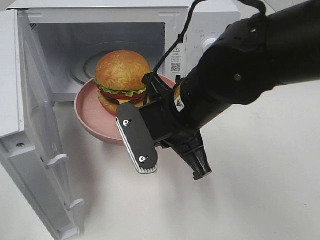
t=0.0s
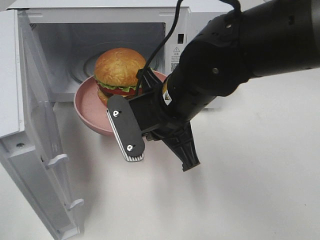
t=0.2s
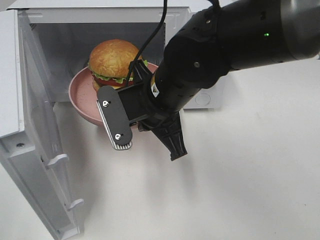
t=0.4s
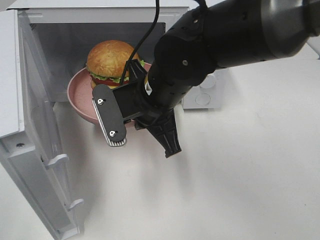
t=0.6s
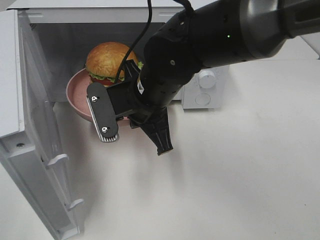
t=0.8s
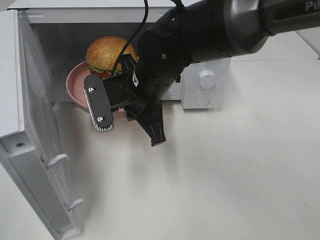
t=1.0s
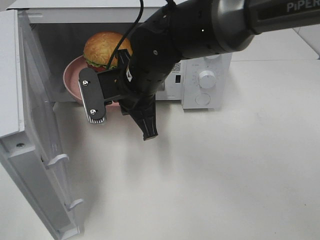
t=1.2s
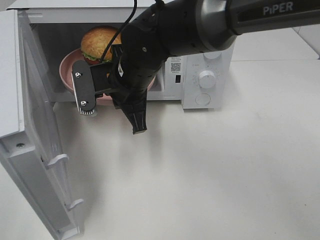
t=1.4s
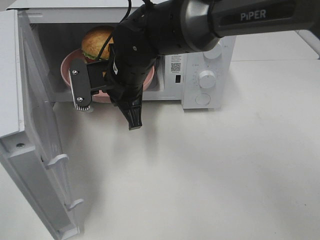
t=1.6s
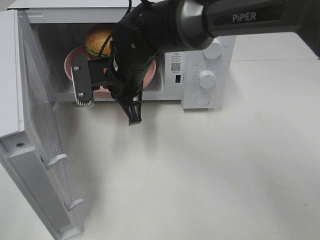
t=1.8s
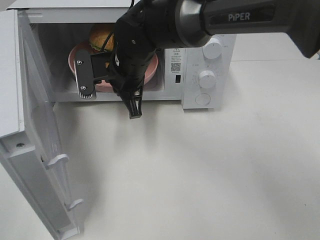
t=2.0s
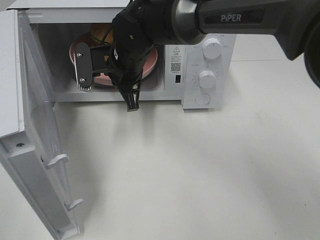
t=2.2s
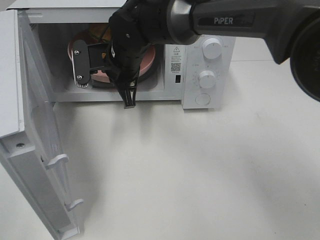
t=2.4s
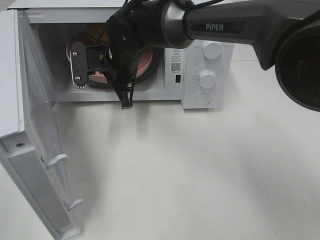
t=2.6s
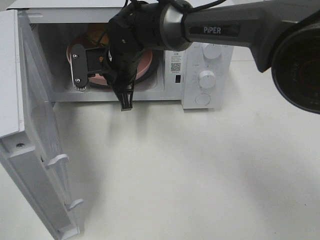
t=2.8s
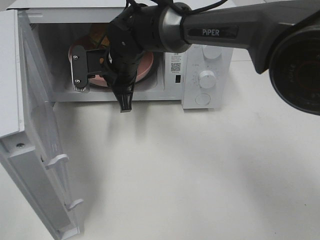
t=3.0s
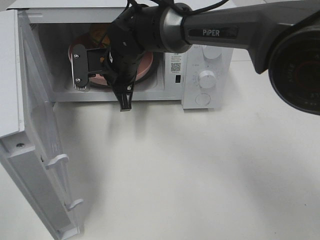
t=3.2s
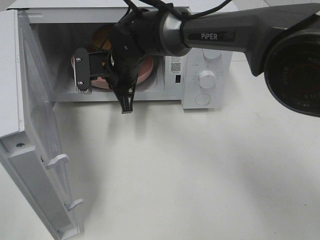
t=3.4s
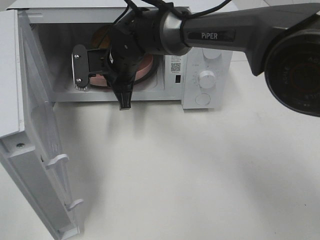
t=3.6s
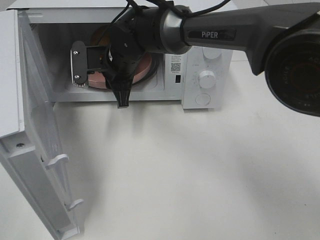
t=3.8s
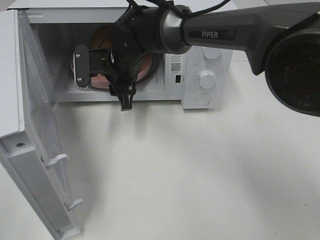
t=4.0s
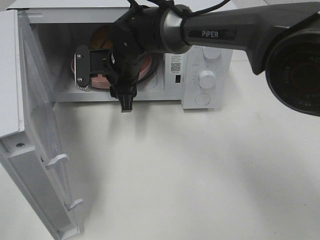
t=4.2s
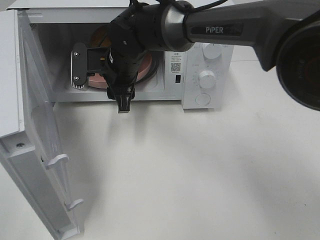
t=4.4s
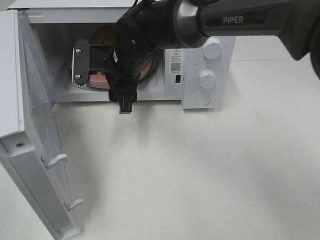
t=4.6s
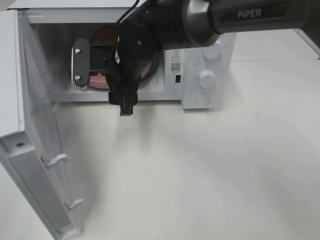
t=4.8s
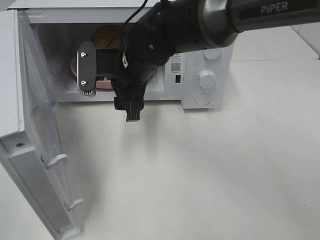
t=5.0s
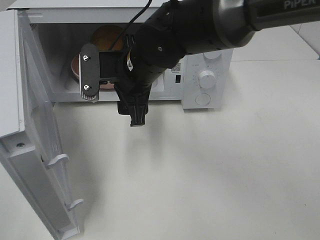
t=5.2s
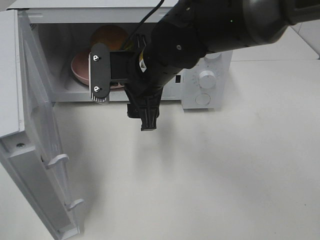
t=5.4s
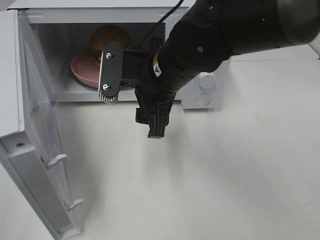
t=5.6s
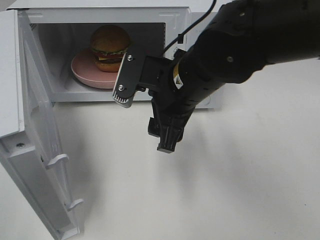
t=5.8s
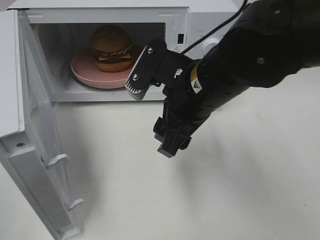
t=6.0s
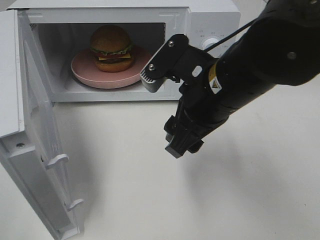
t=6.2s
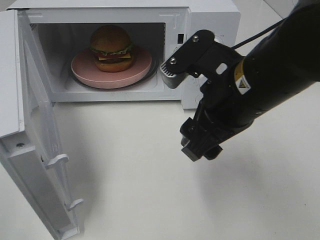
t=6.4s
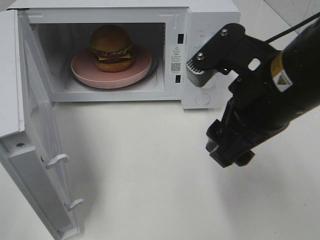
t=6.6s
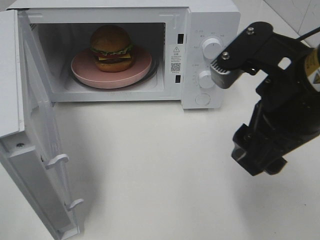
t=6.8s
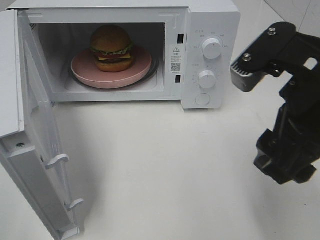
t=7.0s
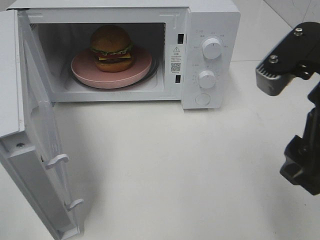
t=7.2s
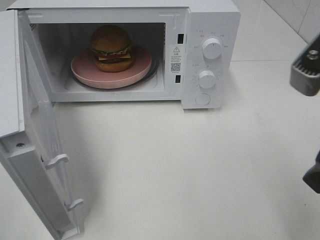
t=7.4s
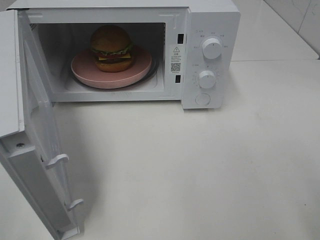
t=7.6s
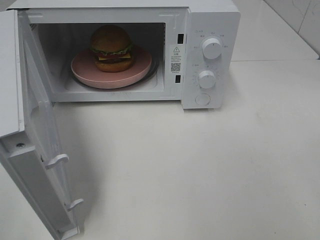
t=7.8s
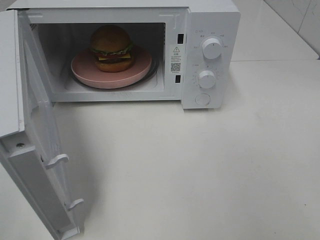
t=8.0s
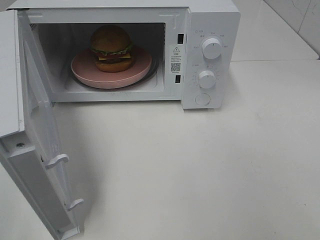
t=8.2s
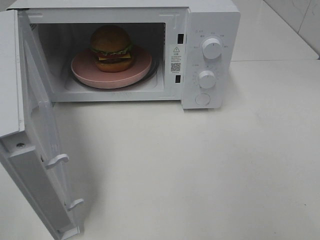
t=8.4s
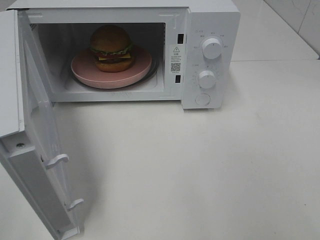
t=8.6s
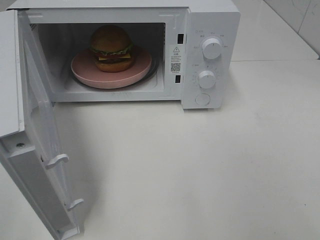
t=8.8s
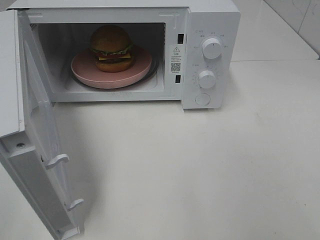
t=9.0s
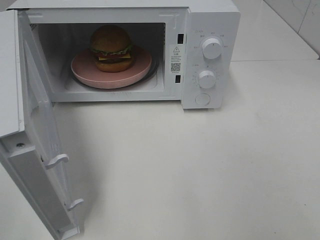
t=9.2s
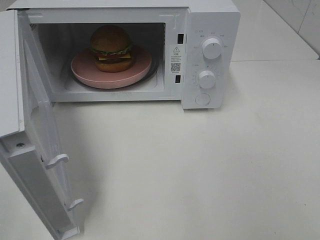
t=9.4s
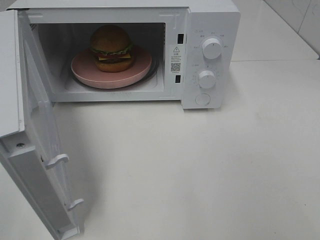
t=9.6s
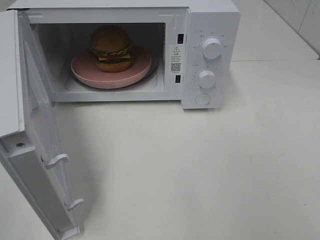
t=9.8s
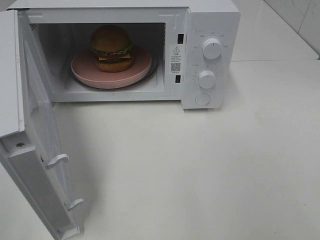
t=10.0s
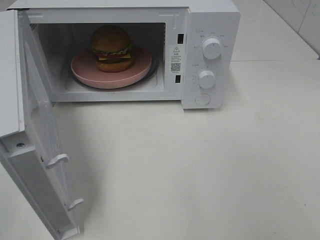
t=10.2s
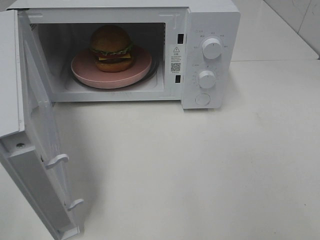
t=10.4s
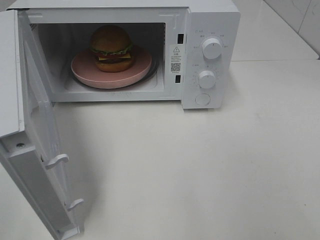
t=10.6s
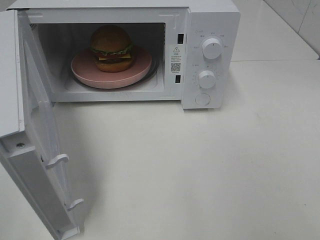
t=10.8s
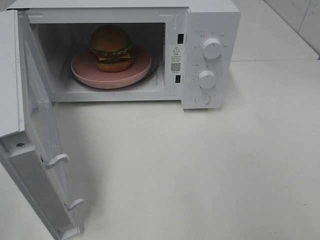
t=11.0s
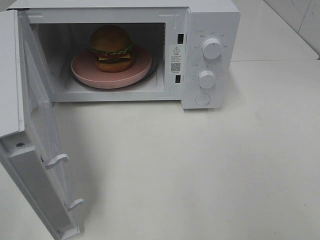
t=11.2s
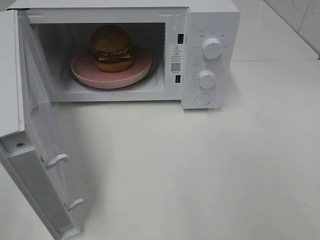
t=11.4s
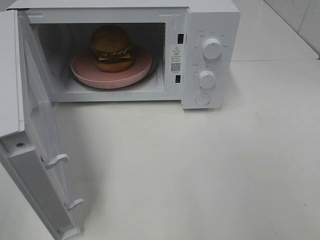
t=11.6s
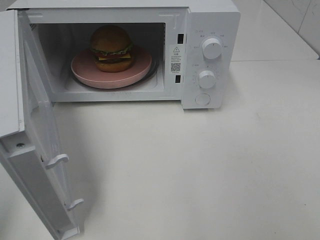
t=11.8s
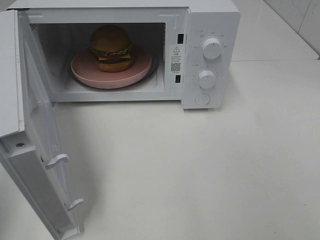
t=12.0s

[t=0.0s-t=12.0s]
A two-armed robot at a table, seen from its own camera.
Task of the whole recording: Heat the burger.
Step, t=0.0s to t=3.6s: Right hand: place the plate in the microwave.
t=0.0s to t=1.6s: The right gripper shifts some 15 cm forward and to the left.
t=1.6s to t=3.0s: The right gripper goes some 5 cm forward.
t=3.0s to t=4.4s: The right gripper opens up.
t=4.4s to t=6.0s: The right gripper travels backward and to the right by some 20 cm.
t=6.0s to t=7.6s: The right gripper is displaced to the right, backward and upward by roughly 20 cm.
t=9.0s to t=10.4s: Both grippers stay about where they are.

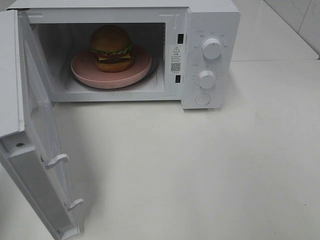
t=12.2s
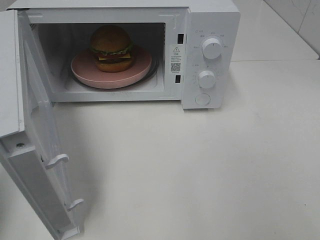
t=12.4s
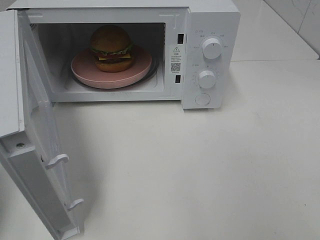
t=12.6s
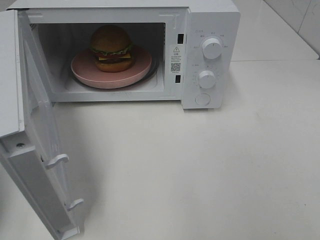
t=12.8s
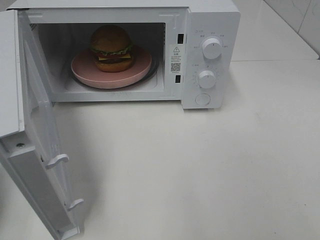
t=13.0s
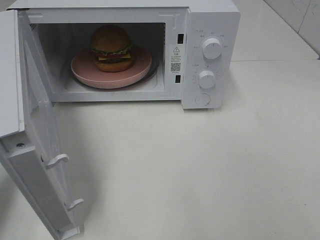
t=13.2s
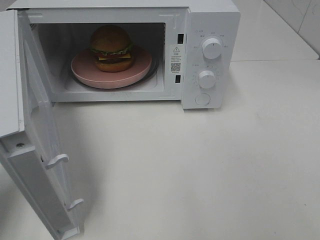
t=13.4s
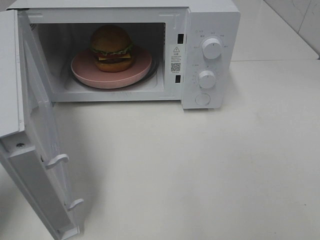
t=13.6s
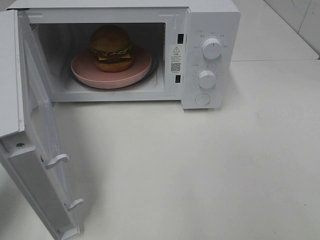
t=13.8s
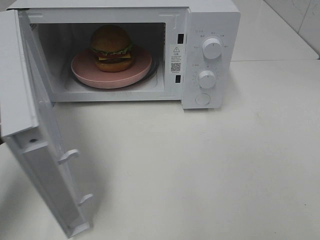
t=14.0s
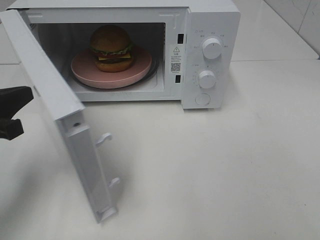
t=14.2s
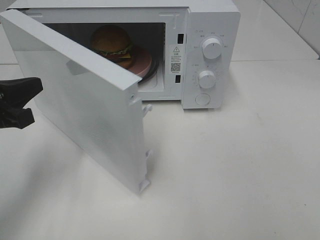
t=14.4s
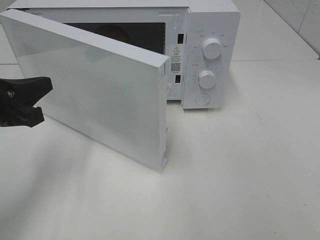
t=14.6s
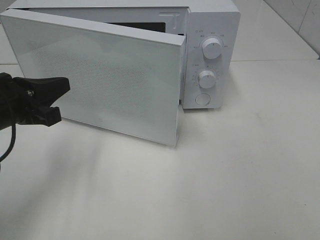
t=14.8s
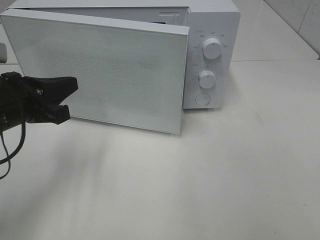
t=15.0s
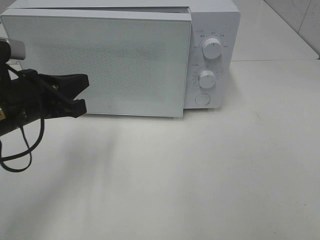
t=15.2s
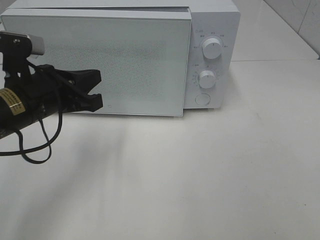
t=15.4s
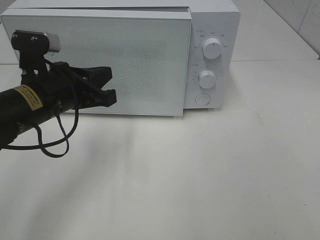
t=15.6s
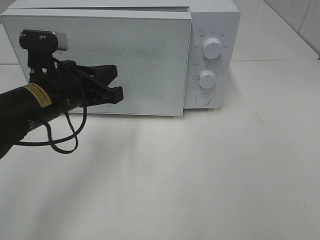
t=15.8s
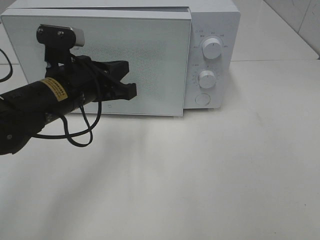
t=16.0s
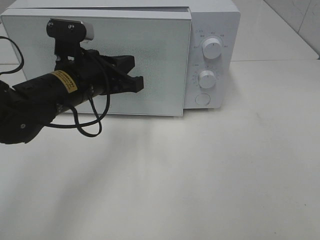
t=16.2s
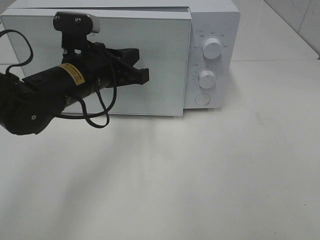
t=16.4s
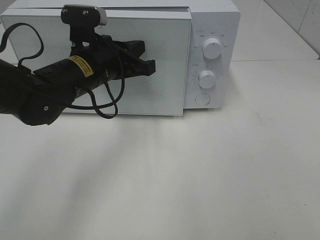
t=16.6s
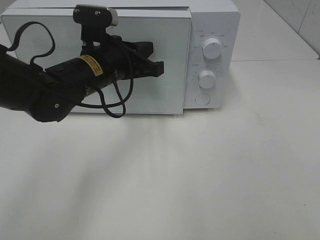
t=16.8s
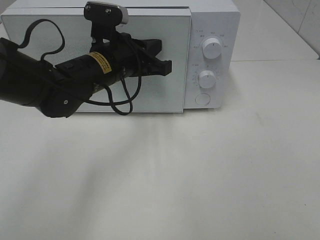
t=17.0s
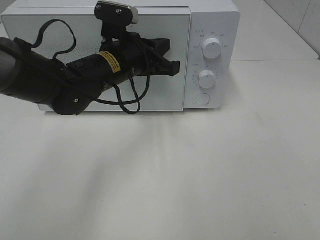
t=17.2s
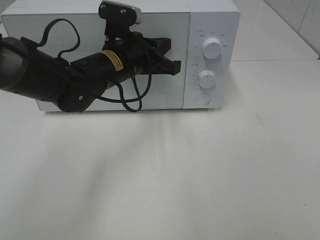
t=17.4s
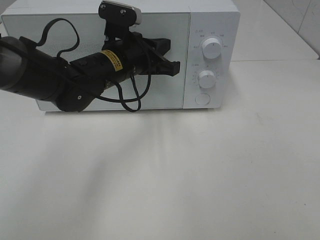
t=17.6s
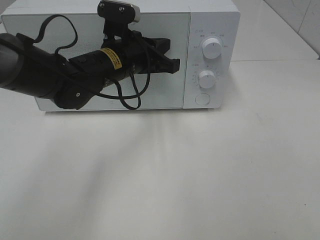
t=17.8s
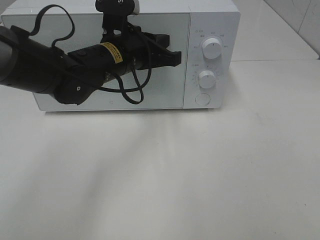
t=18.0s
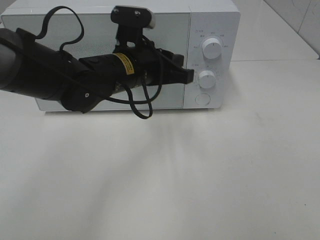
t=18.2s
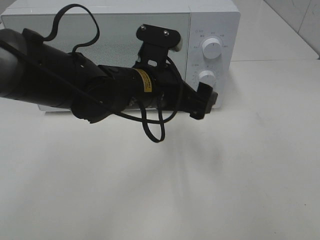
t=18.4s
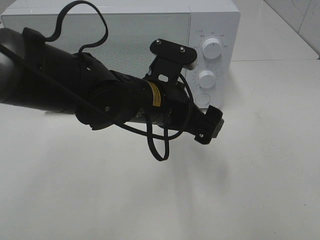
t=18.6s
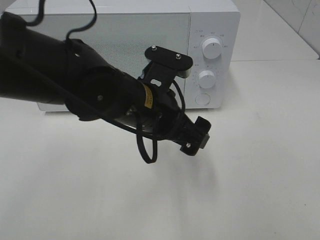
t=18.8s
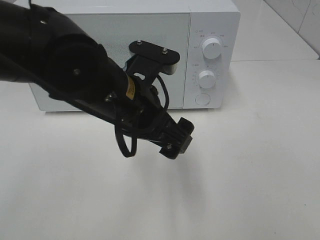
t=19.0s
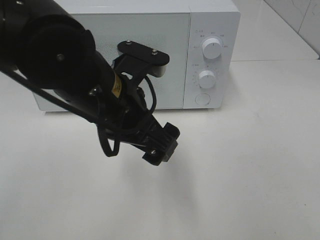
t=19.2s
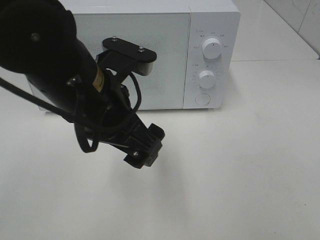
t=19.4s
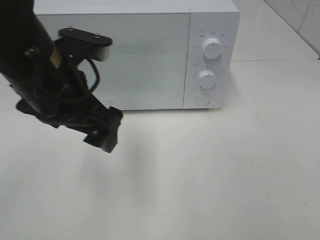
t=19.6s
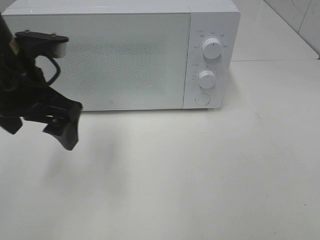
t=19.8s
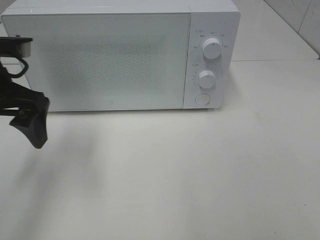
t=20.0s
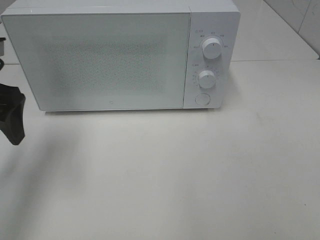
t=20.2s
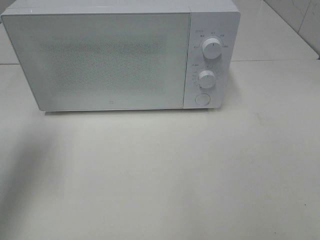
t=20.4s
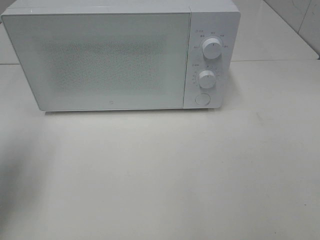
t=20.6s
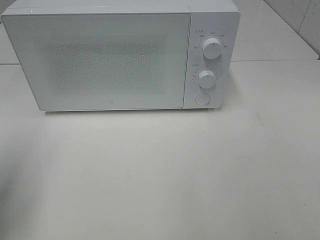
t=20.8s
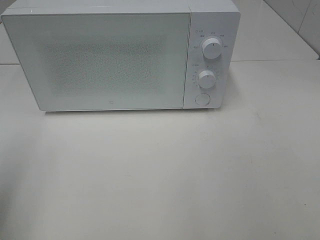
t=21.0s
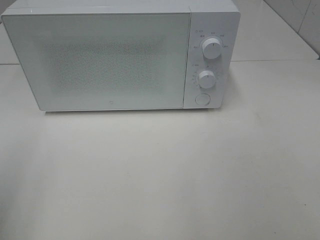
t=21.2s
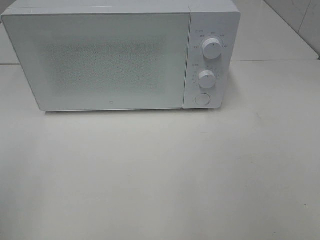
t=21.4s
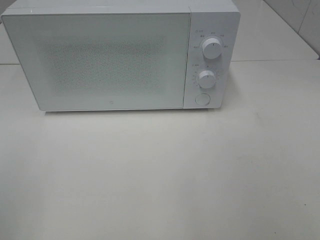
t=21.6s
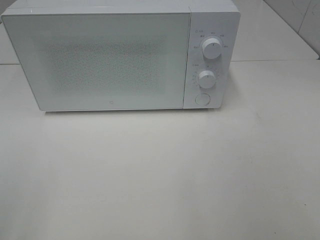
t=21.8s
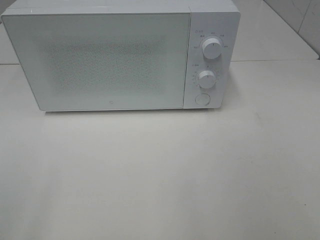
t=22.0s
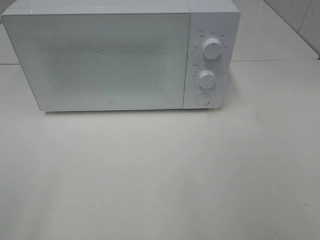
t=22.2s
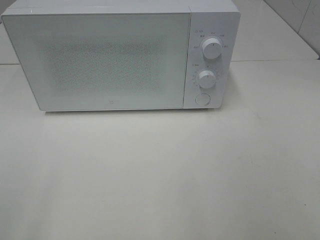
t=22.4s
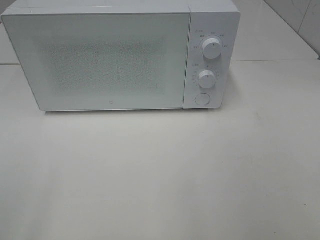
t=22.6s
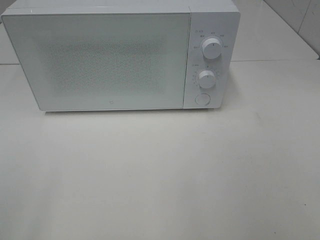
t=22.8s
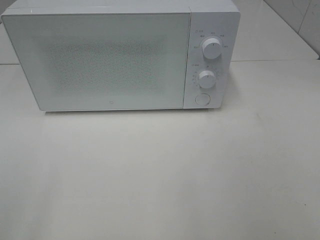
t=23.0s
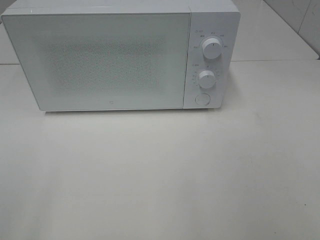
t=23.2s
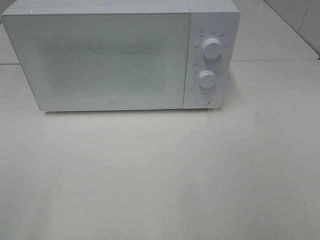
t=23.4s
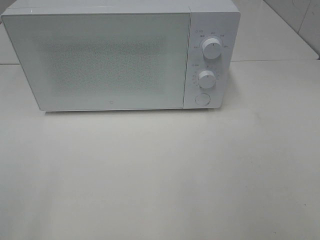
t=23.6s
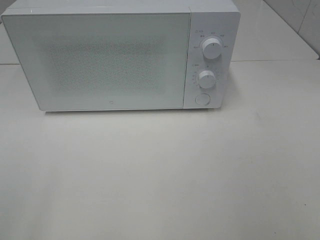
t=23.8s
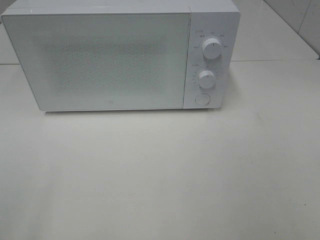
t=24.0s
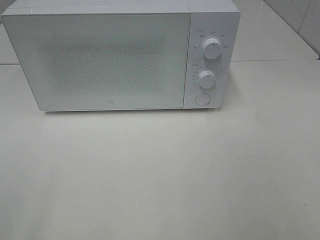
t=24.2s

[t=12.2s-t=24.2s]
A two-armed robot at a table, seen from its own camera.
Task of the whole recording: Heat the burger.
Step, t=12.2s to t=18.0s: Left hand: close the microwave door.
t=12.2s to t=13.8s: The left gripper moves downward and forward, about 15 cm.
t=13.8s to t=15.2s: The left gripper goes about 10 cm to the right and forward.
t=15.2s to t=16.6s: The left gripper heads to the right and forward, covering approximately 10 cm.
t=16.6s to t=18.2s: The left gripper is displaced to the right by some 5 cm, and opens.
t=18.2s to t=19.8s: The left gripper shifts about 15 cm to the left, upward and backward, and opens.
t=19.8s to t=21.2s: The left gripper shifts about 20 cm backward and to the left.
